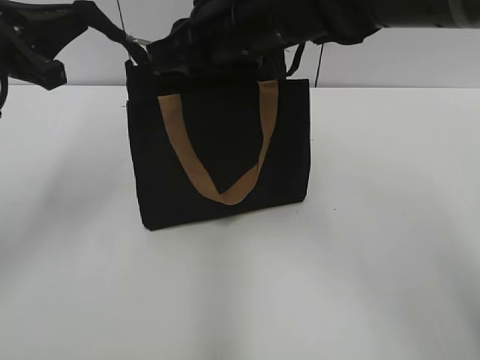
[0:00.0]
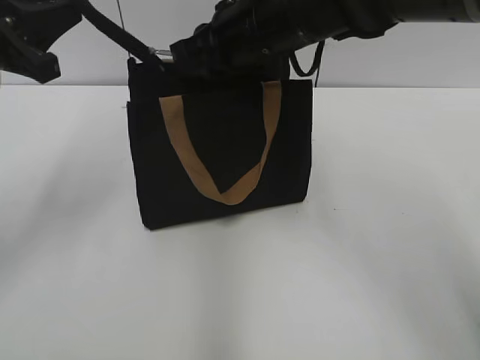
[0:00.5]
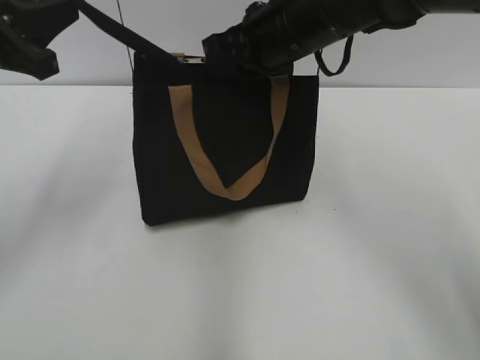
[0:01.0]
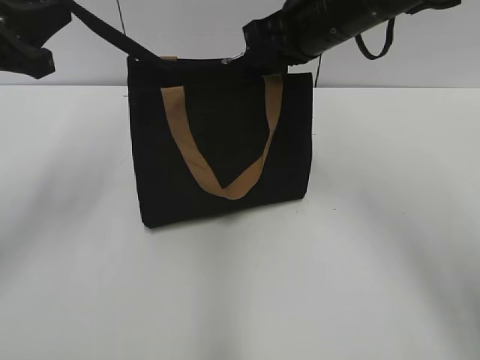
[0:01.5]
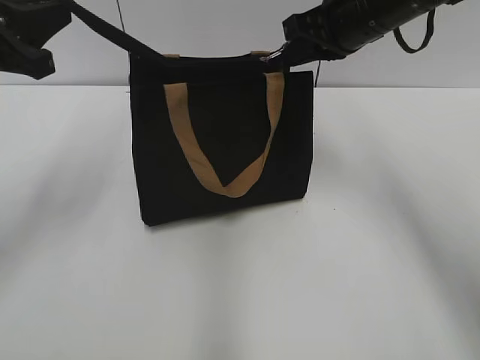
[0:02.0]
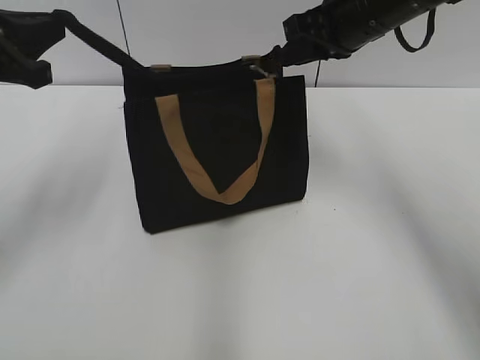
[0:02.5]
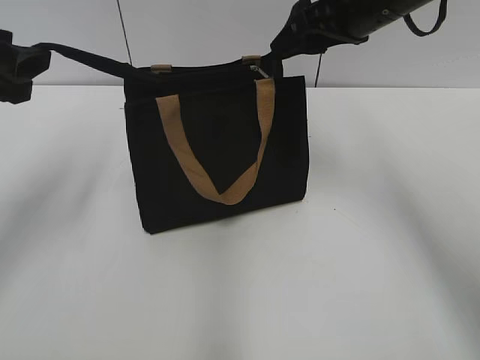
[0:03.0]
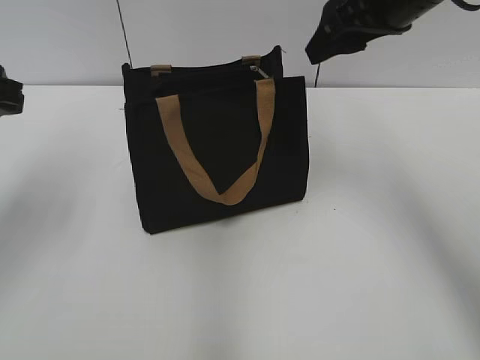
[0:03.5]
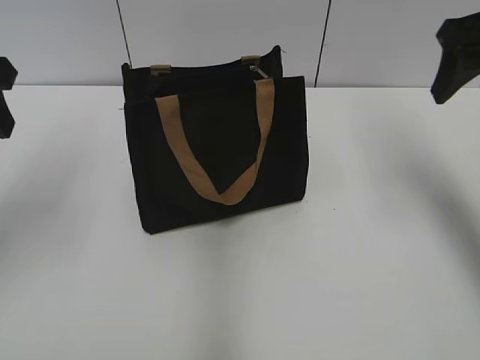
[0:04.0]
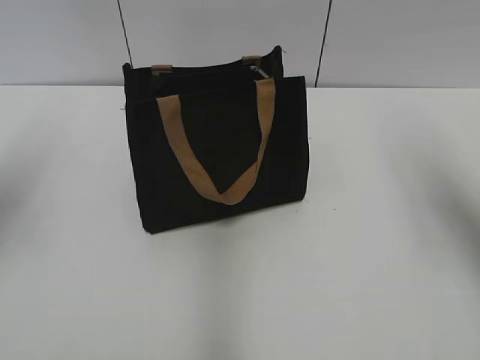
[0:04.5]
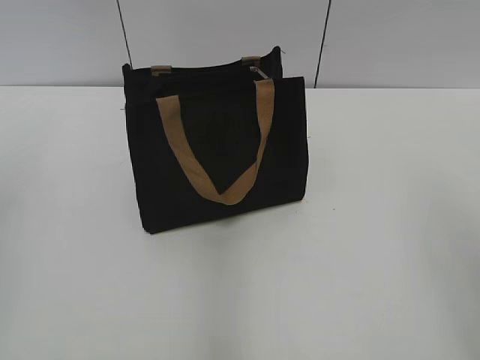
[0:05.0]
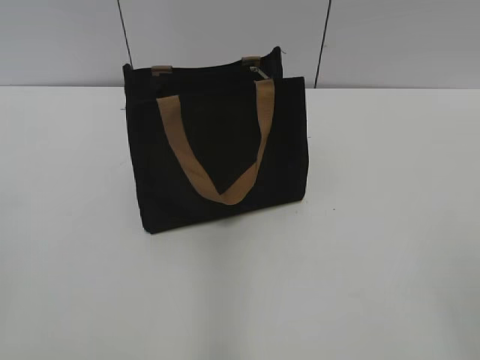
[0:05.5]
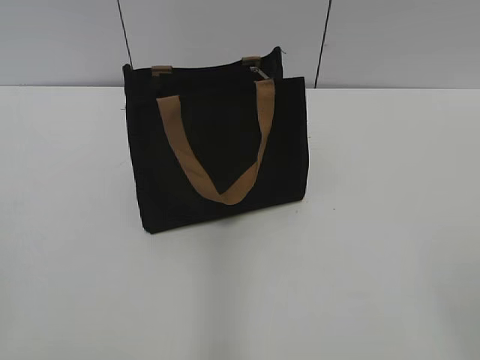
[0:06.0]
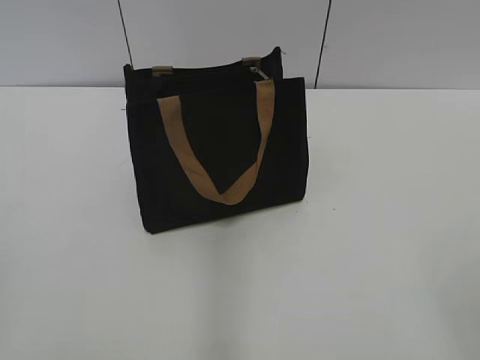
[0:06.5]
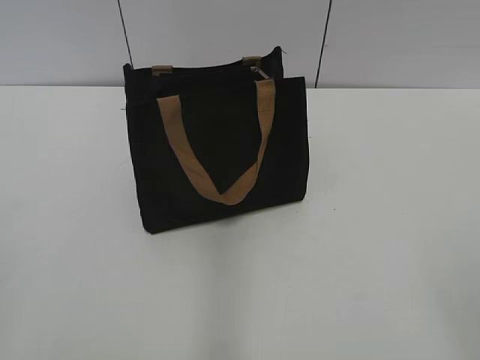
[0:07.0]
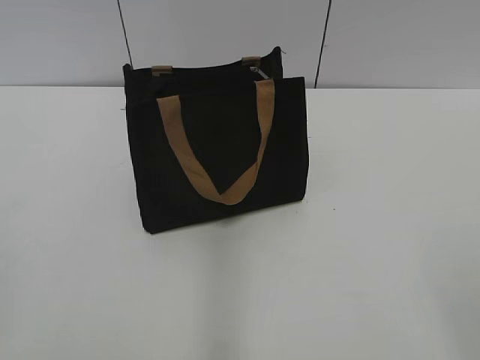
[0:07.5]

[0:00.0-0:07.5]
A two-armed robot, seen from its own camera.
Step, 0:00.0 to 0:02.5: Zip up the bag with your right hand.
0:00.0 to 0:02.0: The right gripper travels to the right by roughly 15 cm.
0:02.0 to 0:04.0: The left gripper opens; the right gripper shifts some 10 cm to the right and backward, and opens.
0:04.0 to 0:05.5: Both grippers travel together backward, some 30 cm.
